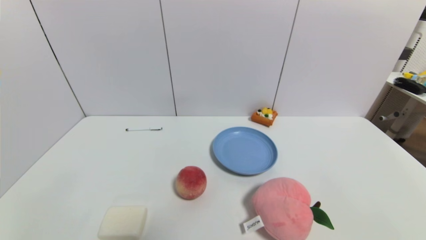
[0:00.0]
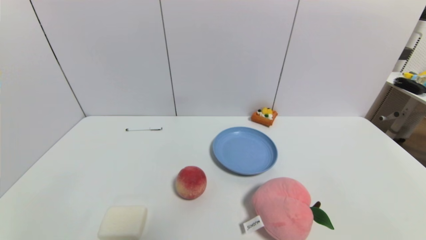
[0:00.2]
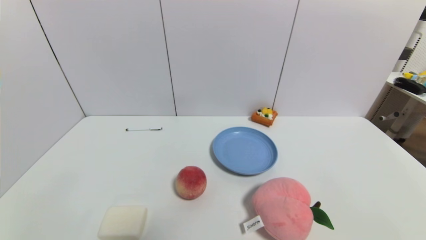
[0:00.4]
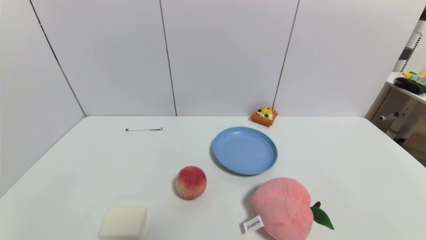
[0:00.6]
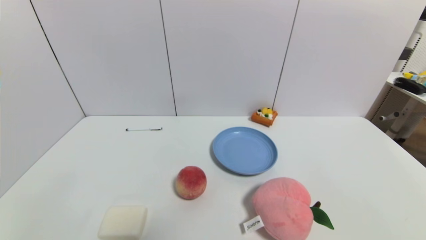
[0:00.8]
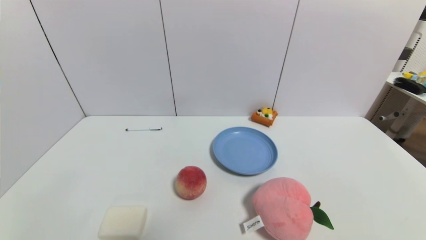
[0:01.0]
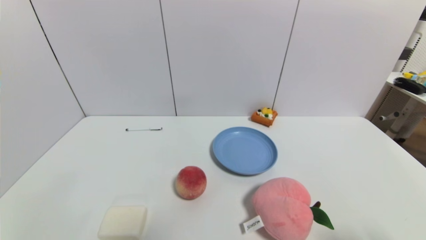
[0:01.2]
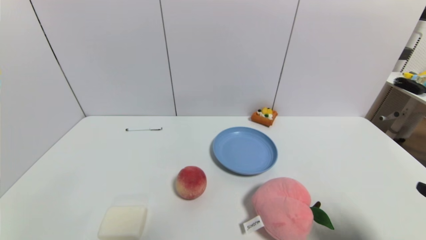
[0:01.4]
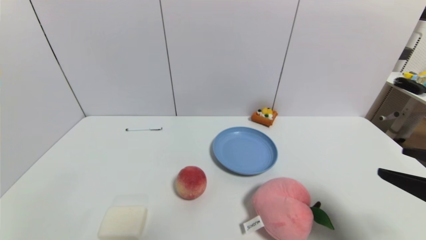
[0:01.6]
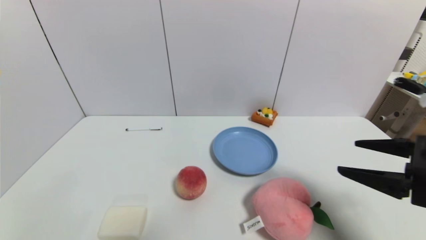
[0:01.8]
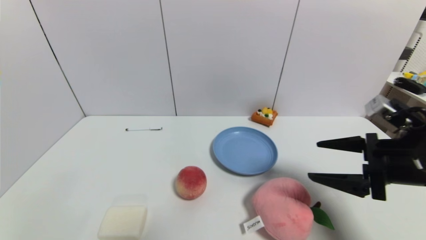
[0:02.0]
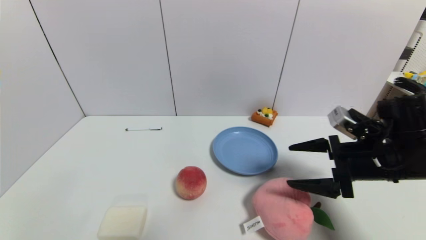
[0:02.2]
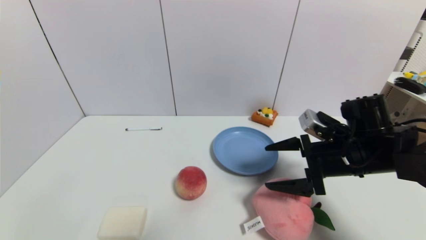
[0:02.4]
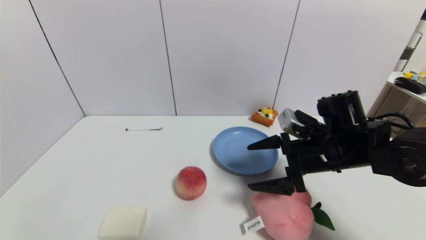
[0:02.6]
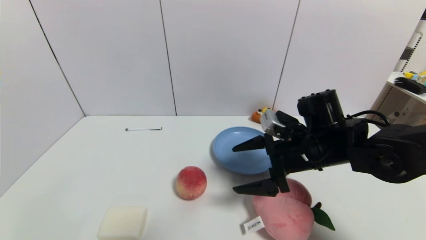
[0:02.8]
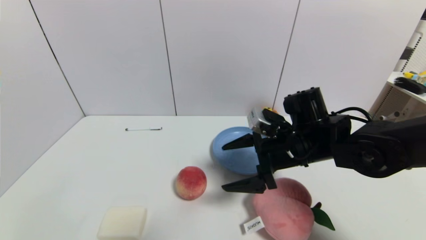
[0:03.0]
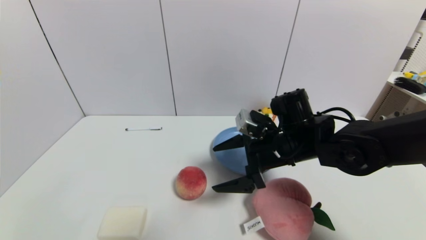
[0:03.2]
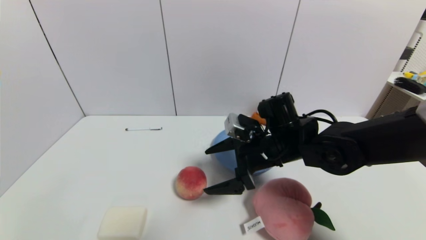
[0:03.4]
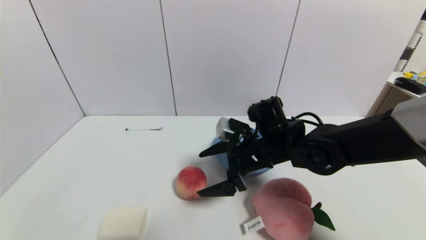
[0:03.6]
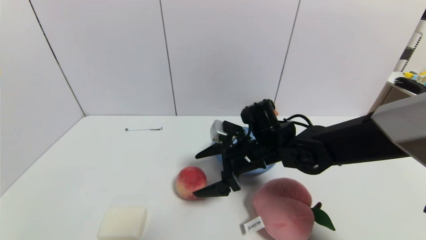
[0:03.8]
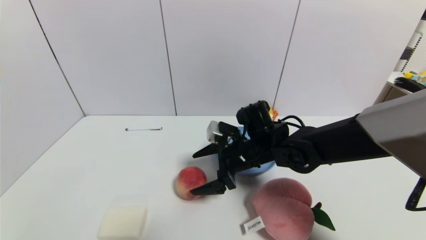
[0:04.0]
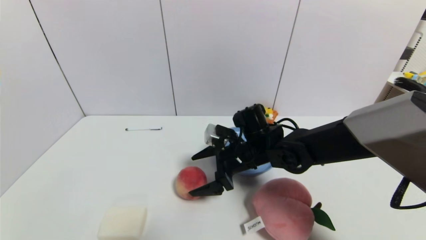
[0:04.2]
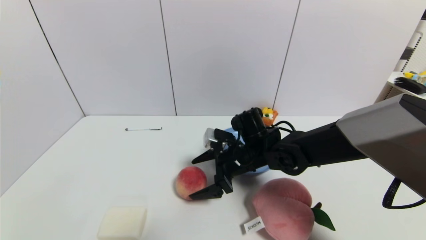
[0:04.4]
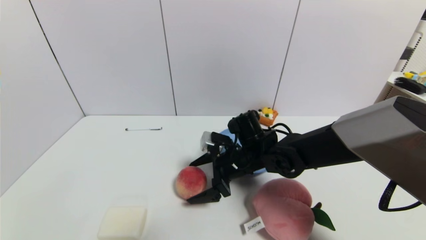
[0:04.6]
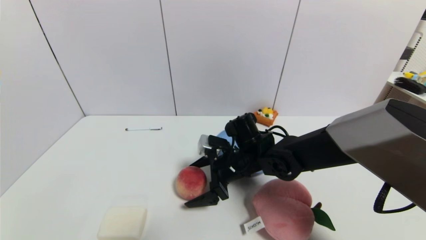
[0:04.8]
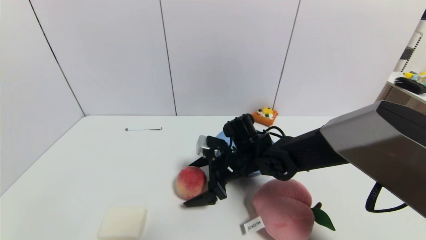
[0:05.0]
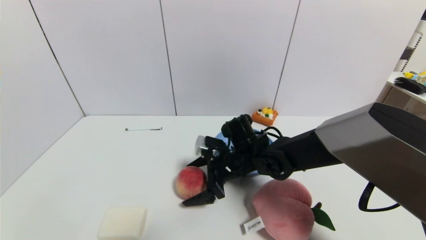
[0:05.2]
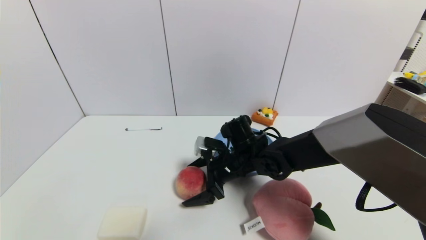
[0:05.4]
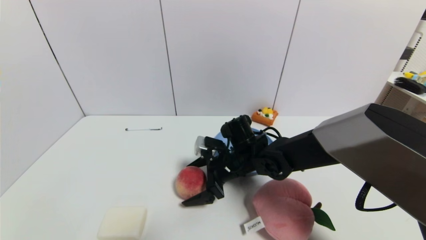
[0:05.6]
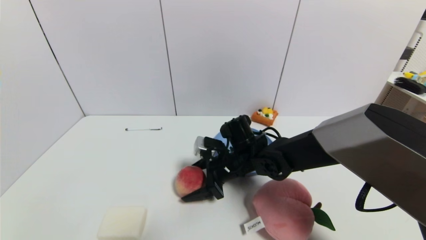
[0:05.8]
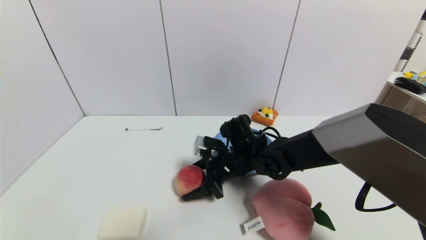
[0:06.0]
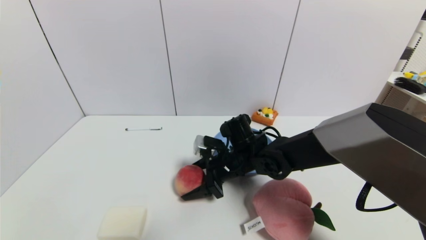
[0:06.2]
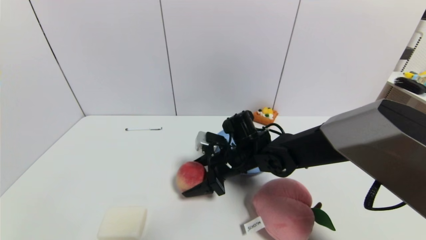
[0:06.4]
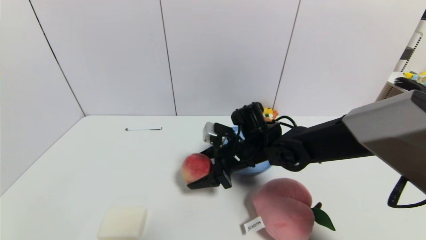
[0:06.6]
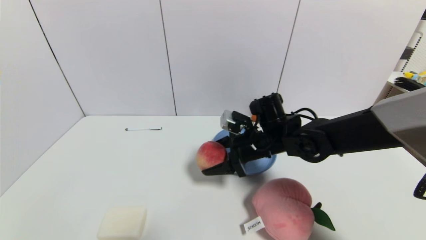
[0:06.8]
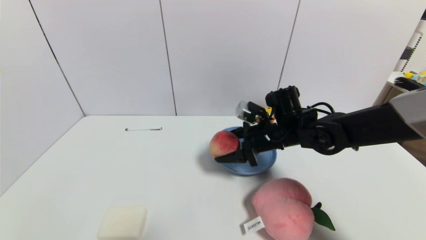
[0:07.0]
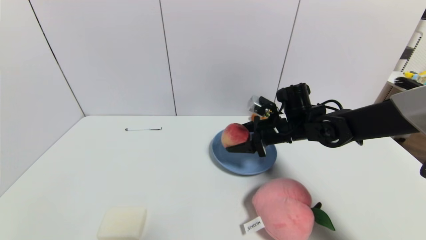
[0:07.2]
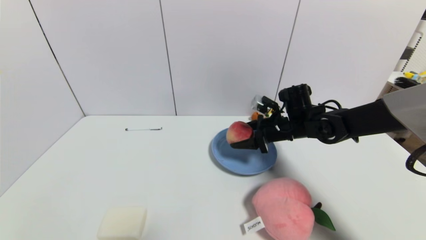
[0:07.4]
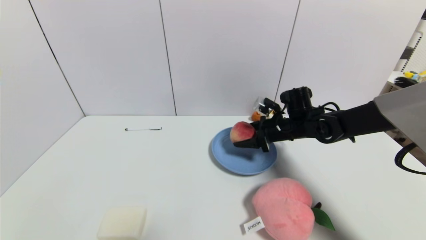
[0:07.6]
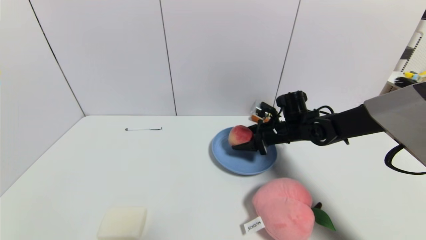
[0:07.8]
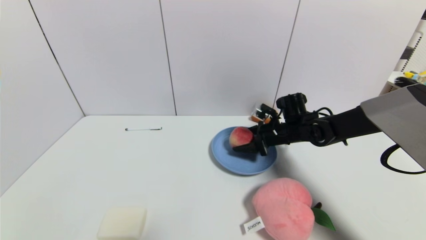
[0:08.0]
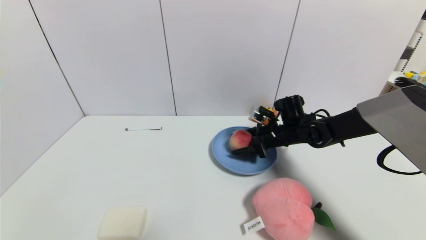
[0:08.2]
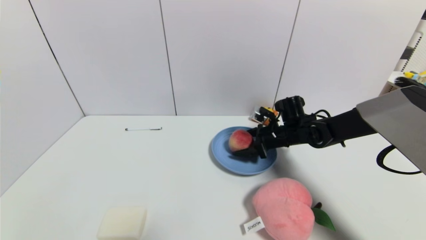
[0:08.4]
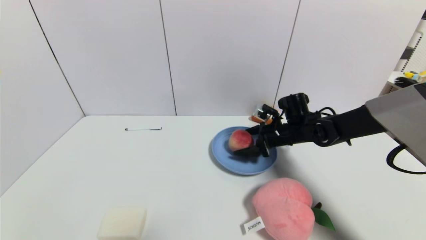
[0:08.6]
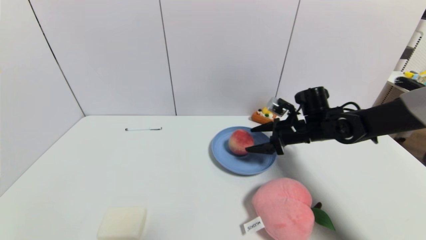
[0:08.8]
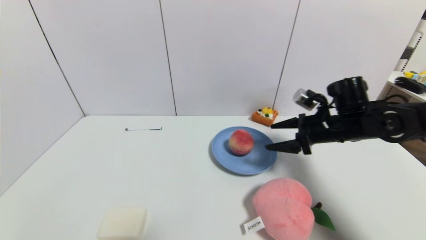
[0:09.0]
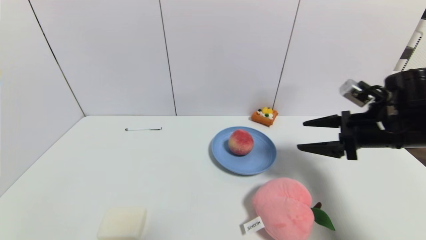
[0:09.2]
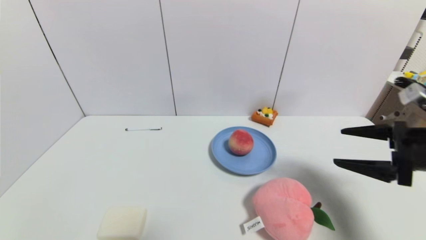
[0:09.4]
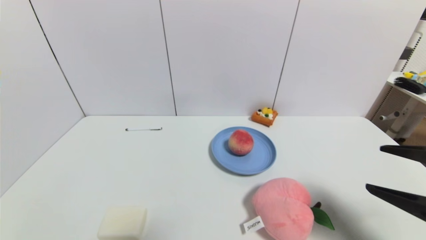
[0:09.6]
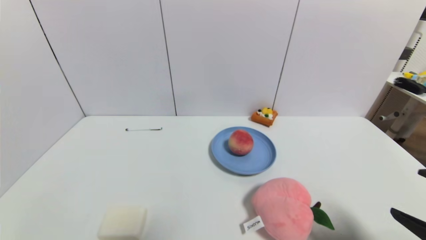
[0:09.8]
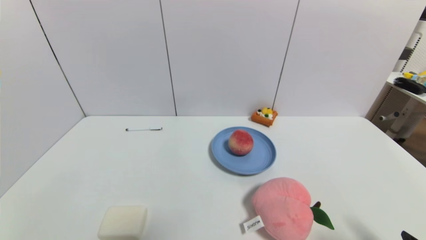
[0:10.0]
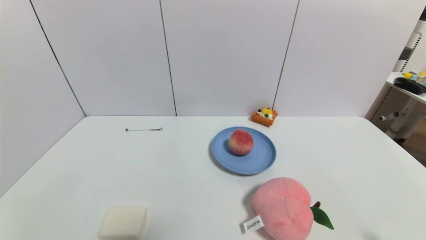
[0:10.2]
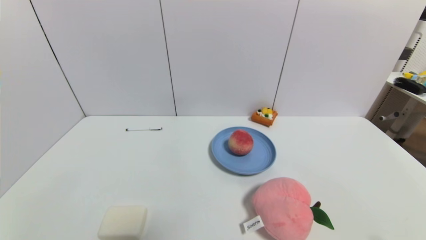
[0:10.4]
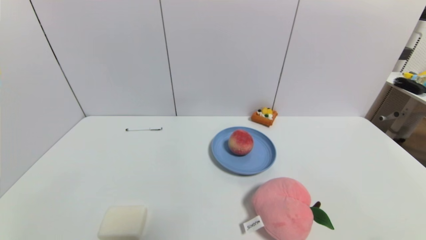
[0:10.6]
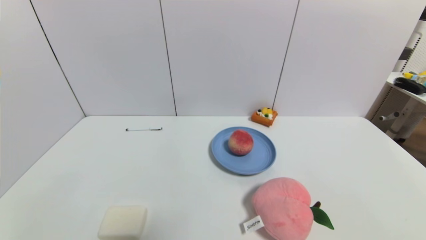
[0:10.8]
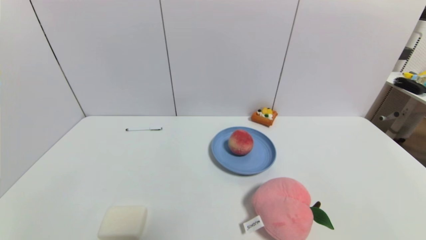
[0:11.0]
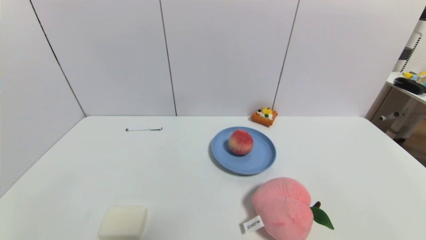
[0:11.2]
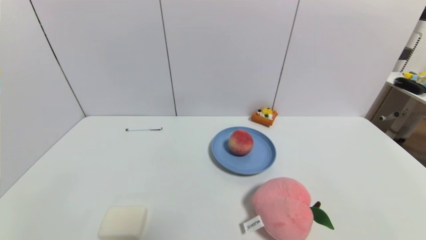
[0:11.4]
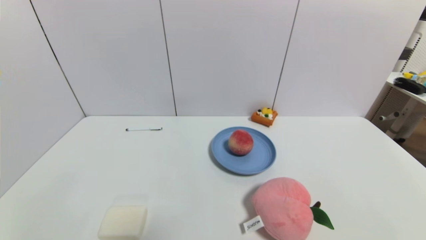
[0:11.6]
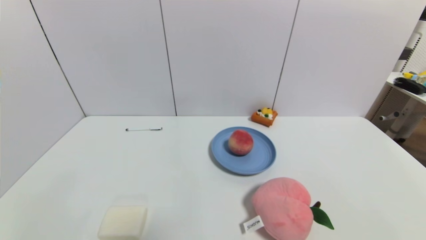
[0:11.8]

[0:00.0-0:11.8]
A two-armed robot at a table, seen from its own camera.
Task of the whole recording: use a gripper to pick the target object and place on the blue plate.
Step, 0:00.0 to 0:05.8: Grasp the peach with the right gripper.
Step, 0:06.0 to 0:08.6: Place the peach on the blue plate with the right gripper.
0:00.0 to 0:01.4: The right gripper heads upward and forward, covering roughly 15 cm.
0:01.4 to 0:03.0: The right gripper moves forward and to the left, roughly 30 cm.
0:03.0 to 0:04.4: The right gripper heads to the left and downward, covering approximately 10 cm.
0:04.4 to 0:06.0: The right gripper closes.
0:06.0 to 0:07.4: The right gripper moves to the right and forward, roughly 15 cm.
0:07.4 to 0:08.8: The right gripper opens.
0:08.8 to 0:10.4: The right gripper shifts roughly 40 cm backward.
